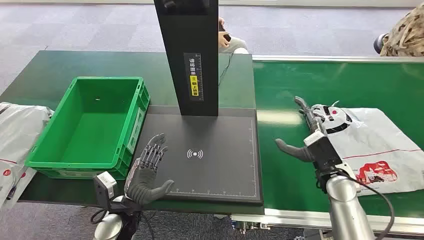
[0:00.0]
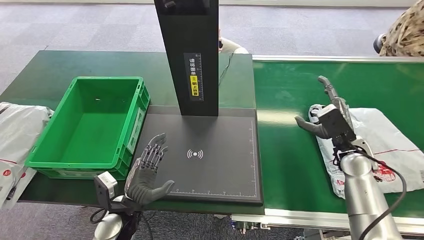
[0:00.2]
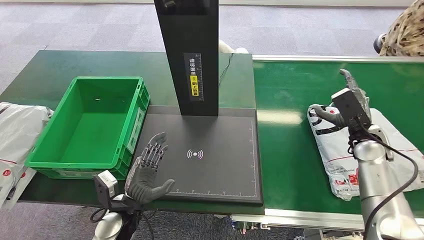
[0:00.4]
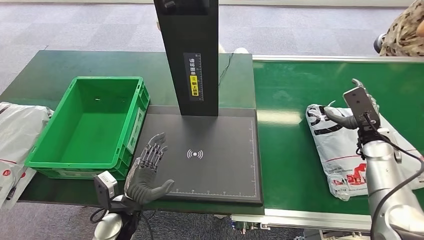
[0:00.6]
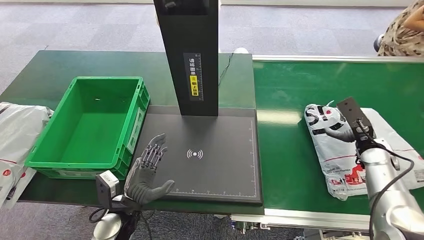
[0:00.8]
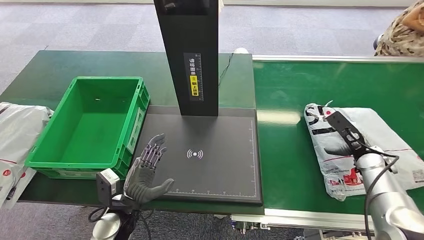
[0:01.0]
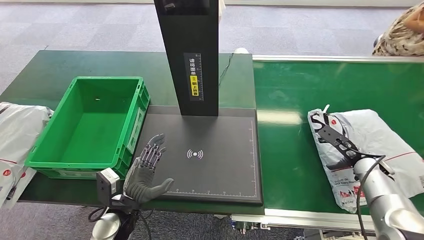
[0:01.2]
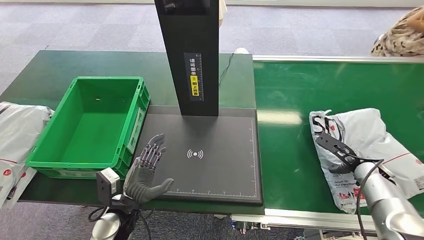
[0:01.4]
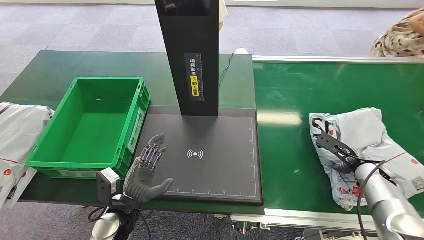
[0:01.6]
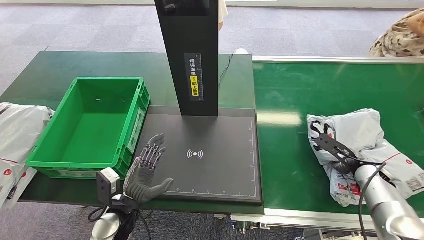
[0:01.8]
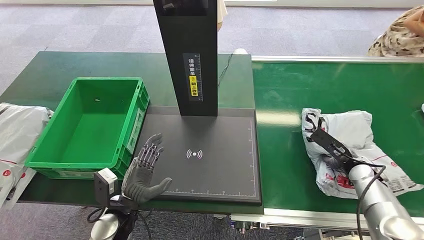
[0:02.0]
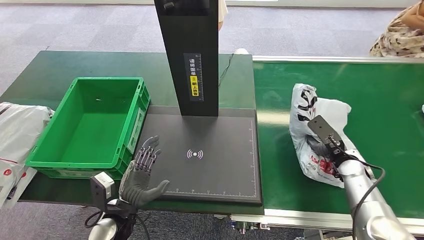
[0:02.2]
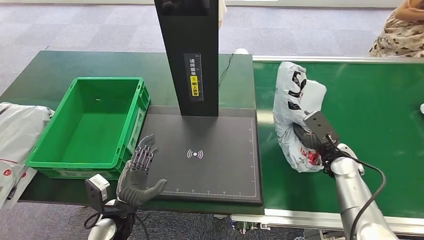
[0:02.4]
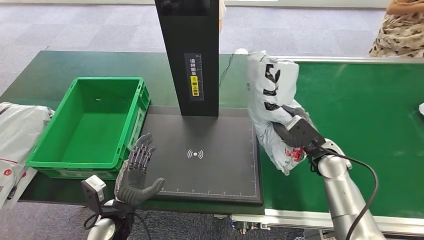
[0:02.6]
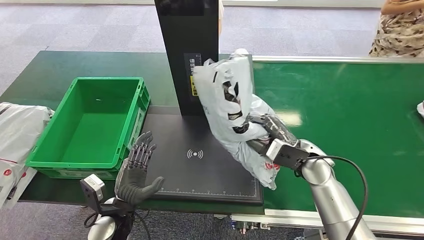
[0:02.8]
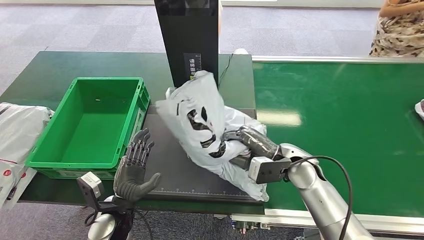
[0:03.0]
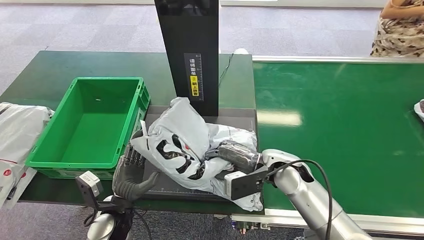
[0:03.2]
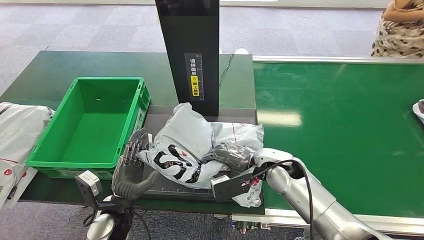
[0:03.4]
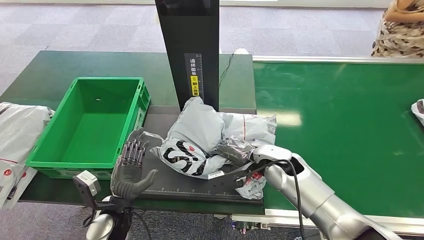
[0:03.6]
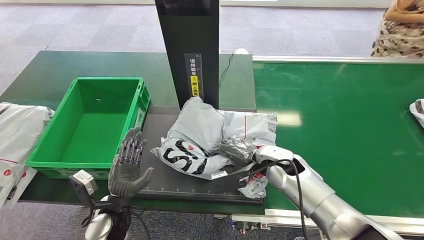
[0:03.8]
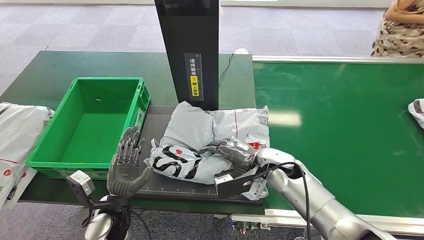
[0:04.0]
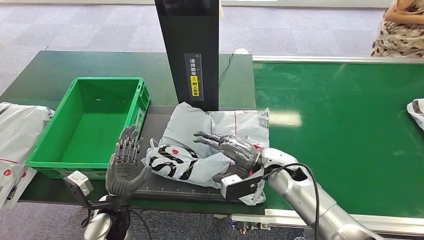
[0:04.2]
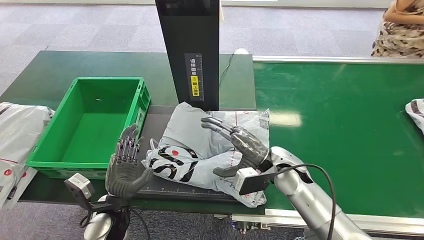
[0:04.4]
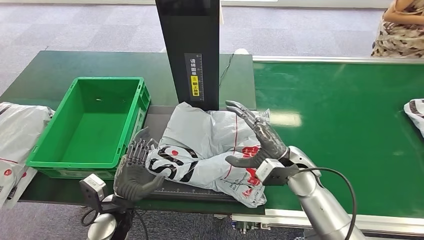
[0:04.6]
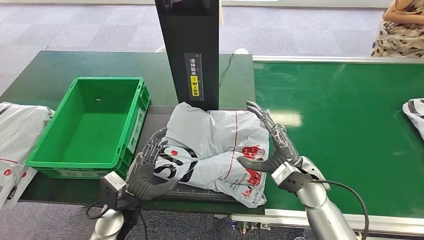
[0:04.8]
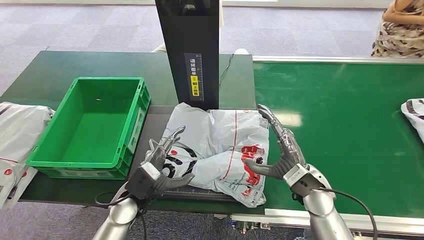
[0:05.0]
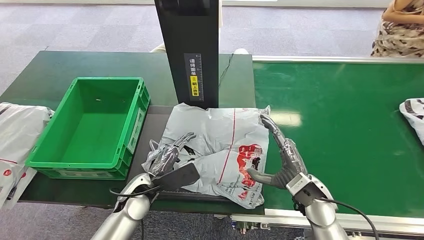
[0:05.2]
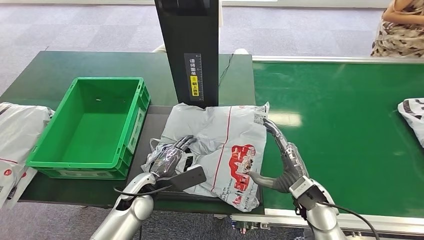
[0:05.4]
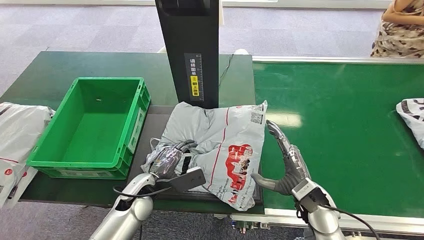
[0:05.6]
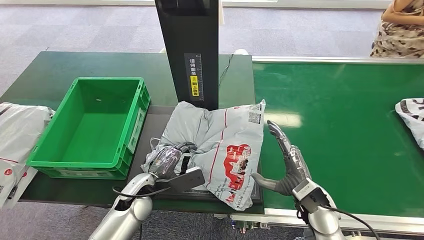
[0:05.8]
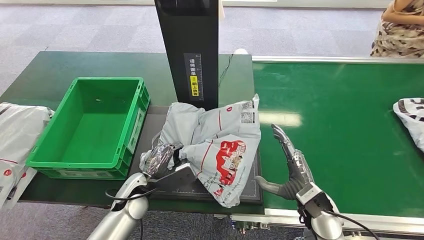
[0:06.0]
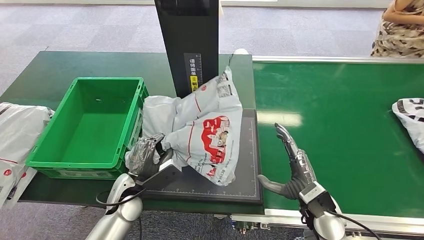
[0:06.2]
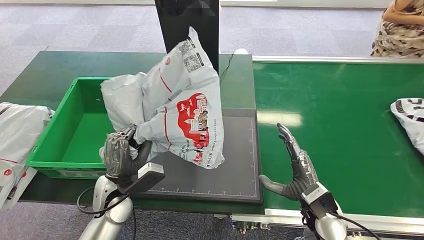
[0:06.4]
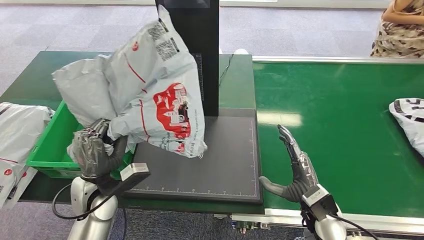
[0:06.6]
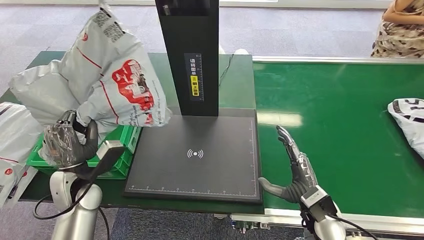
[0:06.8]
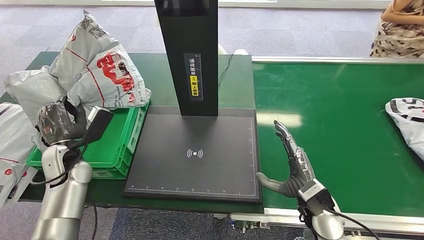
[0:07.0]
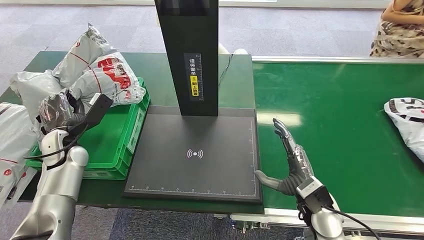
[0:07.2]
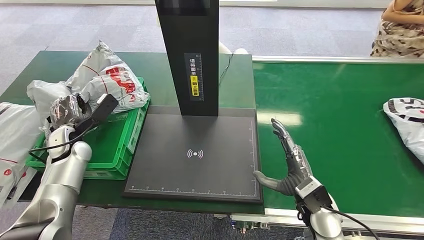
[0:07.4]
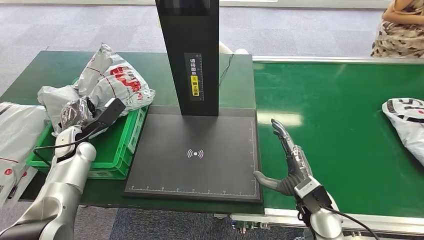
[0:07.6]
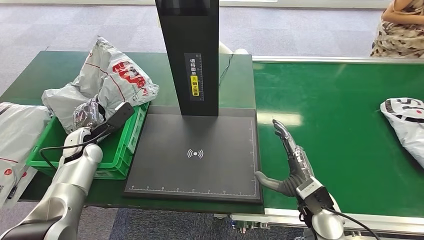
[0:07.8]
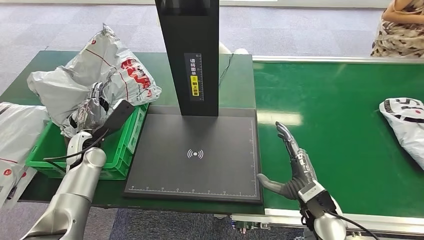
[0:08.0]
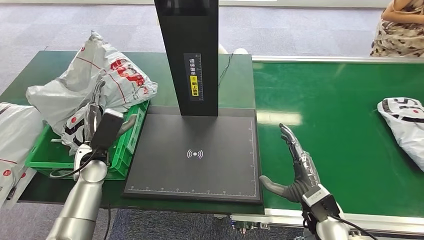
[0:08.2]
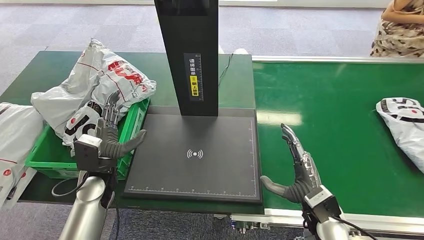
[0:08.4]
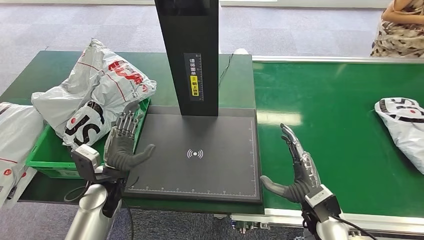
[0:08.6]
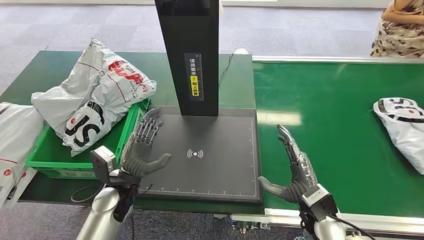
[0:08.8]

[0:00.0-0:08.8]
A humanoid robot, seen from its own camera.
Step, 0:00.0 to 0:02.4: Pick up the package from the conveyor belt.
Step, 0:02.8 to 0:05.0: Place the package onto the inbound machine.
Step, 0:05.2 to 0:06.2: Pick up the package from the inbound machine.
Step, 0:06.4 to 0:08.6: Place the package into the parcel locker.
0:04.4 to 0:05.8: The left hand goes roughly 5 cm forward; the right hand goes roughly 10 cm backward and to the right.
0:07.4 to 0:08.8: The left hand heads to the right and backward, covering some 20 cm.
